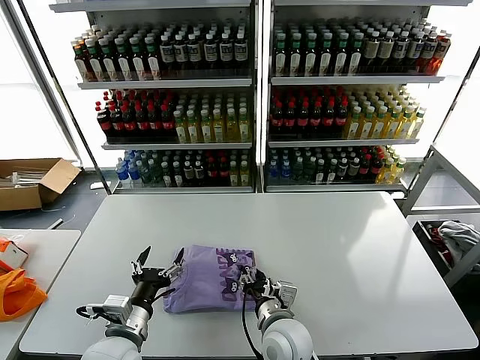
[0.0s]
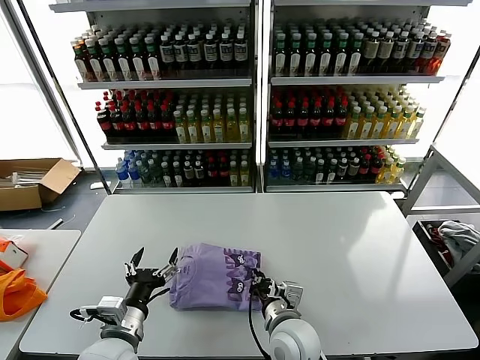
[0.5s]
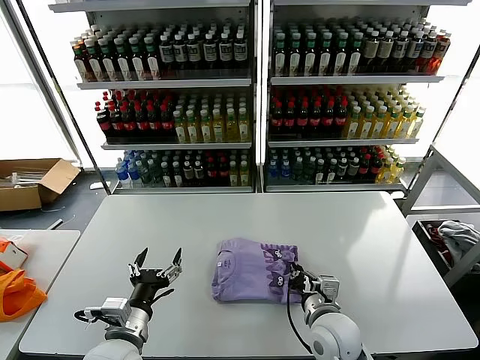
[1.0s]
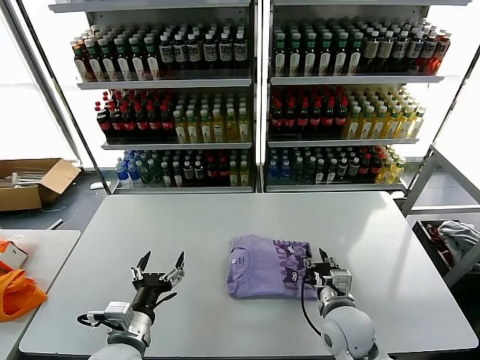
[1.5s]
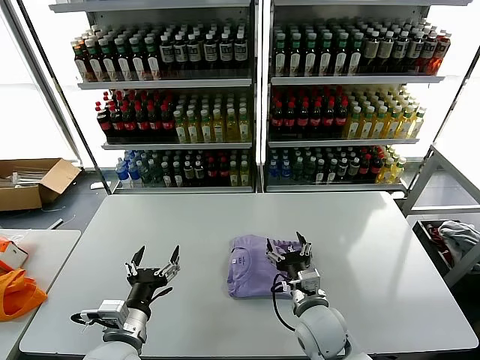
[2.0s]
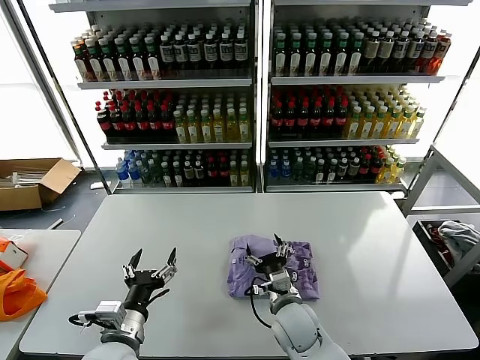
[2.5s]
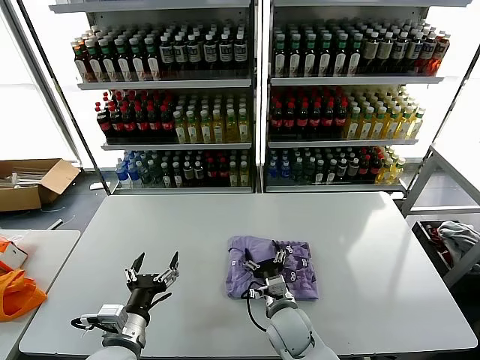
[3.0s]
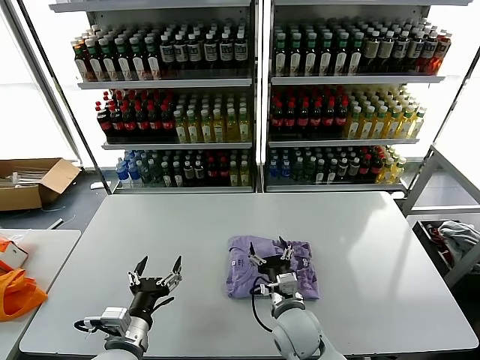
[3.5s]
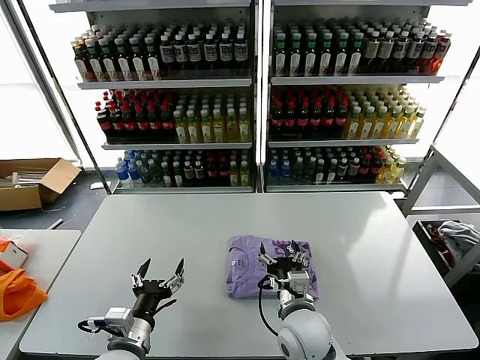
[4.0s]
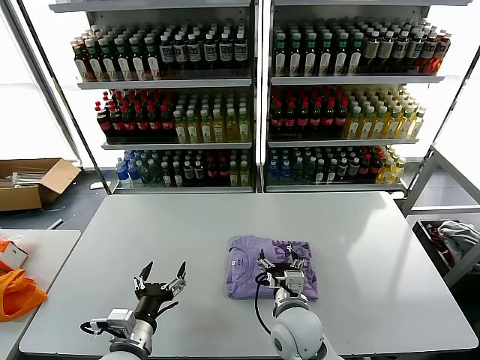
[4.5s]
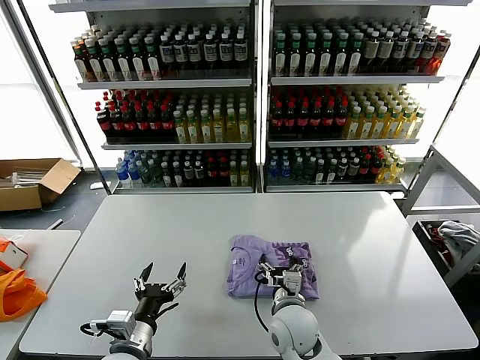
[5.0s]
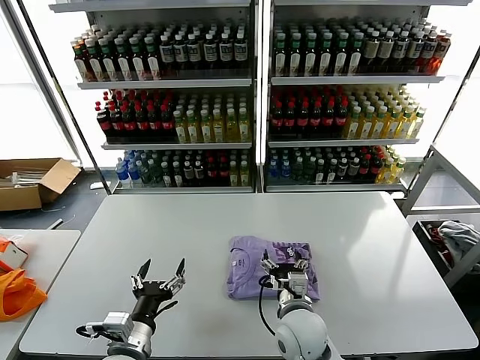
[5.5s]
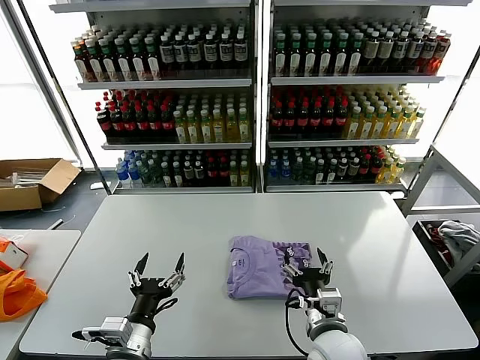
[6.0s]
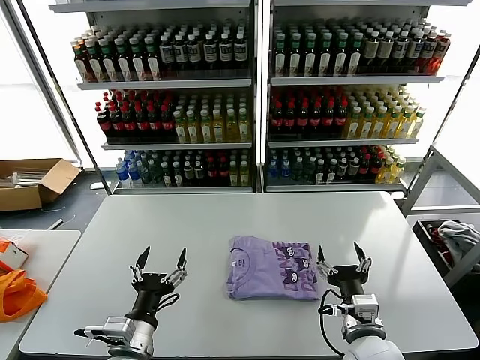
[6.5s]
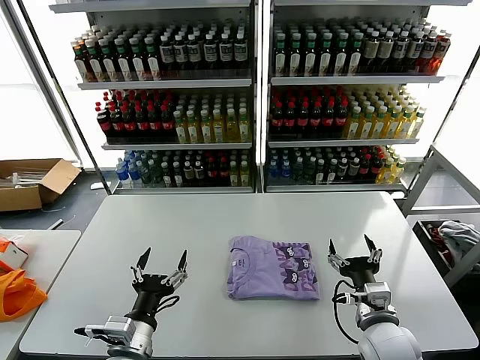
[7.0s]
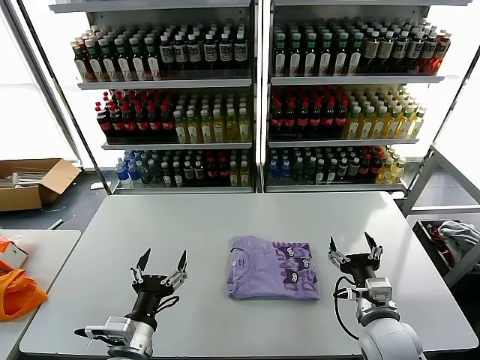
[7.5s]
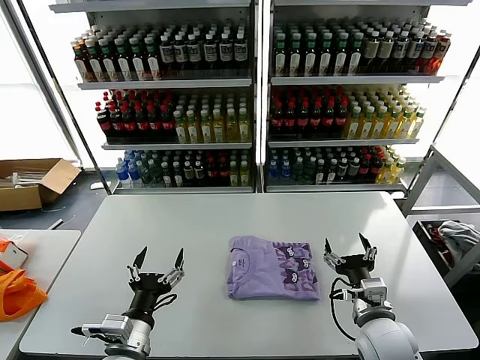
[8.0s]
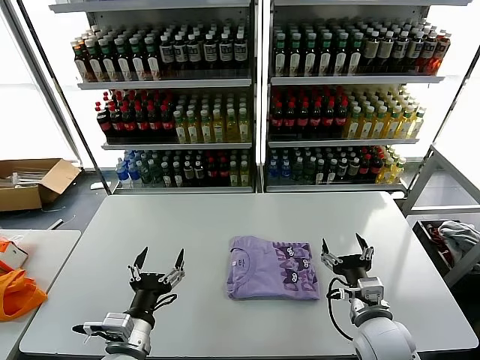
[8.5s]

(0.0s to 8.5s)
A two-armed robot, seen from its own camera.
Task of the whole recording: fold and organize the clothes.
Step, 0.0s - 5.5s: Drag the clothes to the center of the table.
0.0s - 2.0s: The right gripper travels to the right by some 10 cm, and opens its fingers.
2.0s - 4.0s: The right gripper goes downward and returns, approximately 5 cm each way.
4.0s - 6.5s: The right gripper goes some 10 cm to the right and backward.
6.5s - 8.5s: The grippers stay close to where they were, moving slightly.
